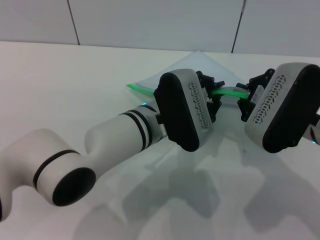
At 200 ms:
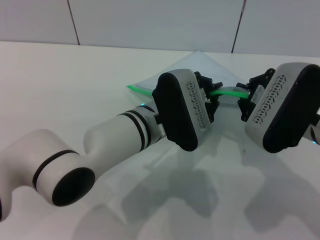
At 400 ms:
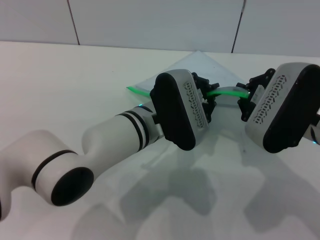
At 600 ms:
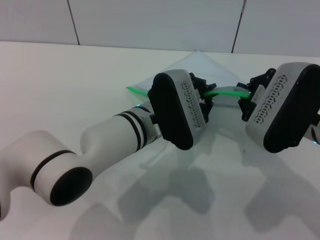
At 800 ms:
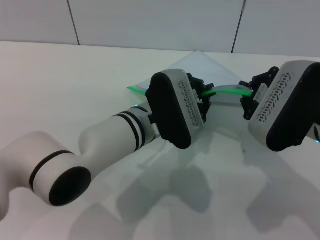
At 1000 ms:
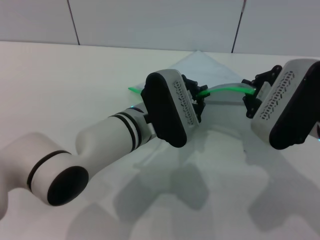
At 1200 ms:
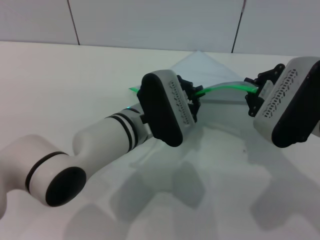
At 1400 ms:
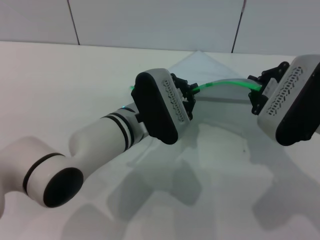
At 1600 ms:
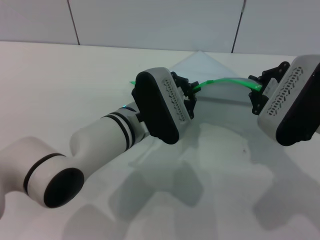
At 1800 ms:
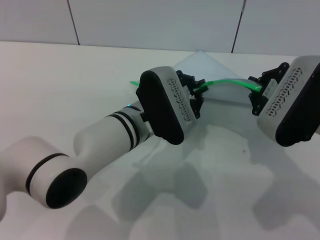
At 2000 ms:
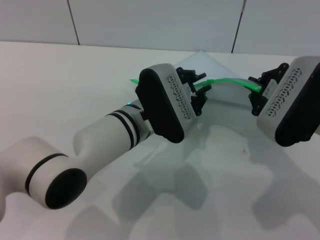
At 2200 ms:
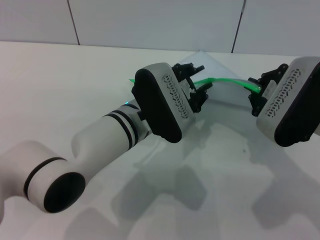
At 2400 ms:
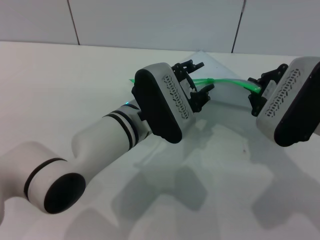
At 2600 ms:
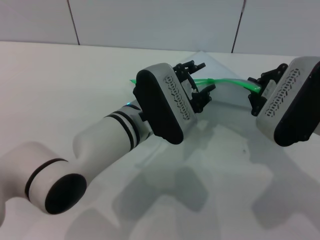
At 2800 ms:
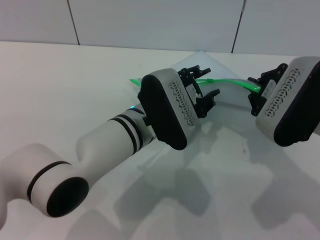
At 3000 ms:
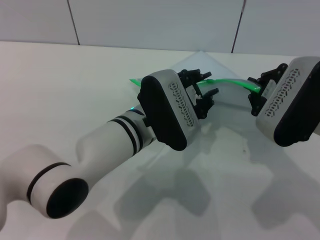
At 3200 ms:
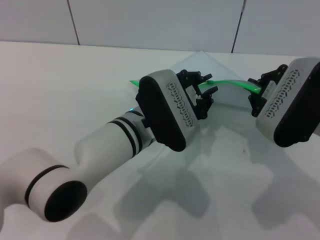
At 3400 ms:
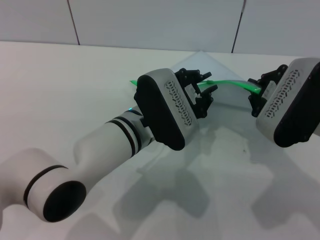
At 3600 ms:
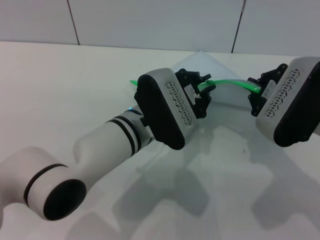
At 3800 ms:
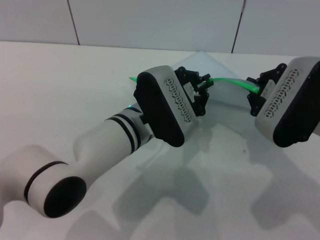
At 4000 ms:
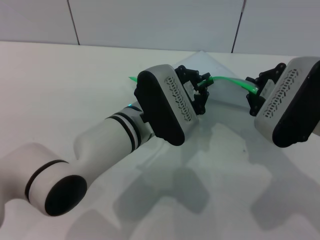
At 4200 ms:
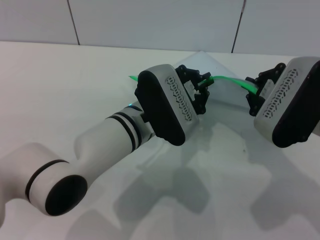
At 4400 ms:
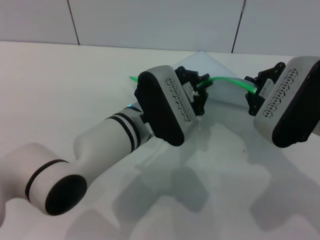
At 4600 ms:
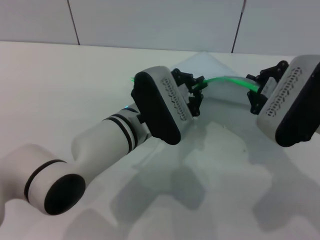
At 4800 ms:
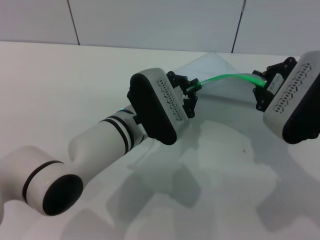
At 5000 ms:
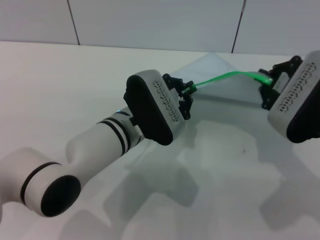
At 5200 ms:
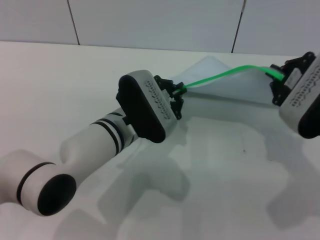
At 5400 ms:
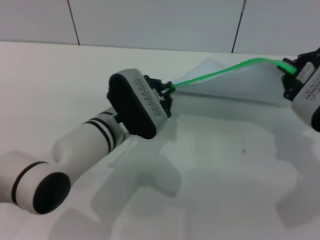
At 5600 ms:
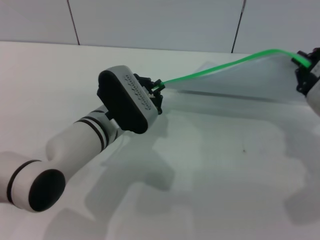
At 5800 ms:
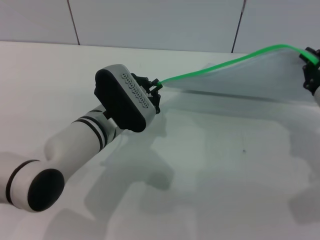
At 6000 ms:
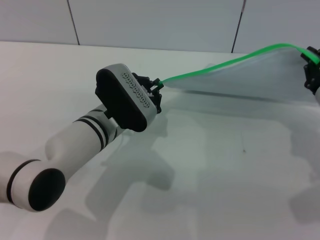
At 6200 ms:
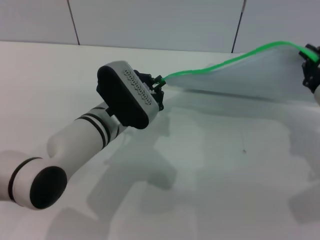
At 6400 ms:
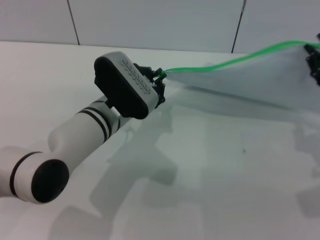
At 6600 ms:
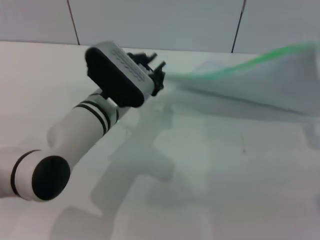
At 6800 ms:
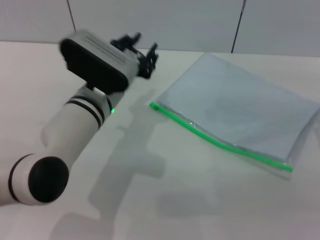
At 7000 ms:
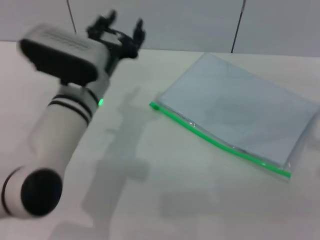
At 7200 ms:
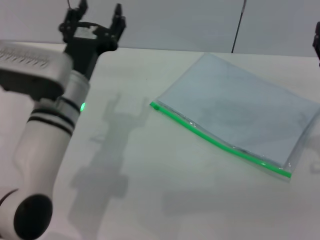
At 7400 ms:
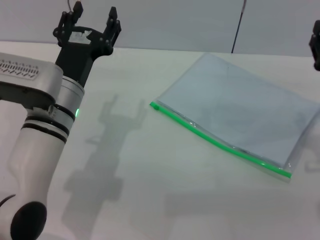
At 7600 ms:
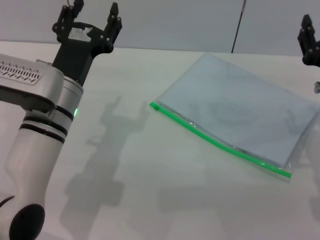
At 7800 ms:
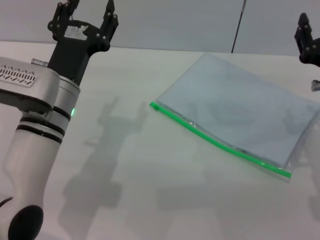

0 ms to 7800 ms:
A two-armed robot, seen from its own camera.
Step, 0 ms to 6800 ms: Pulling up the zipper on the transparent plastic bag with the left gripper to close it.
Step, 7000 ms to 7400 ms: Place the transparent plastic bag.
0 ms to 1600 ms: There are only small adjustments of the grippers.
1600 ms to 3200 ms: The left gripper opens.
3200 ms to 4600 ms: The left gripper closes.
4600 ms to 6200 ms: The left gripper changes place by approximately 5 cm. The right gripper heads to the right, covering some 5 cm.
6200 ms to 7800 ms: The left gripper moves to the left, about 5 cm, and opens its fingers, while the right gripper shifts roughly 5 cm downward, and opens its fingers.
